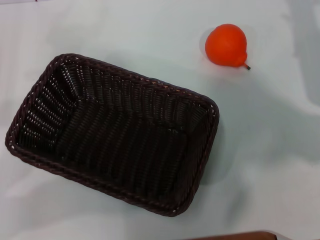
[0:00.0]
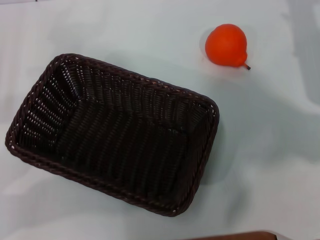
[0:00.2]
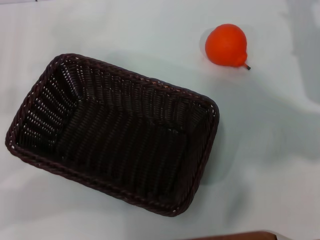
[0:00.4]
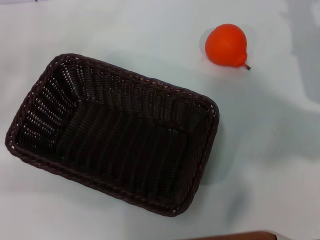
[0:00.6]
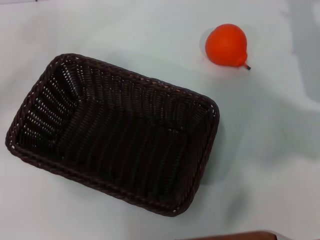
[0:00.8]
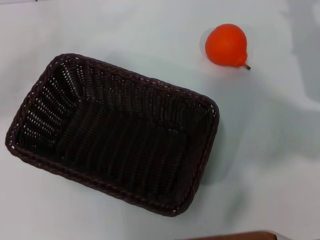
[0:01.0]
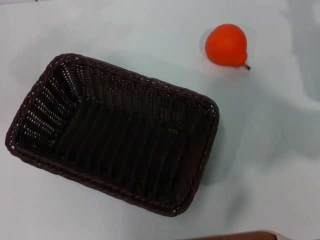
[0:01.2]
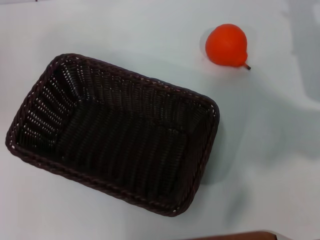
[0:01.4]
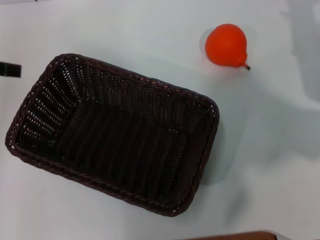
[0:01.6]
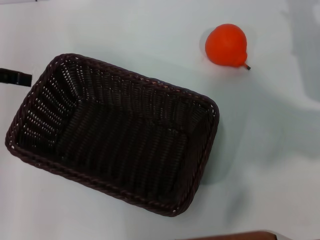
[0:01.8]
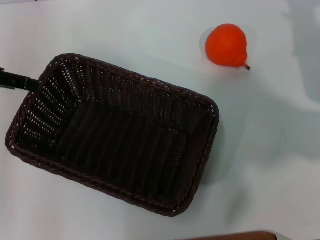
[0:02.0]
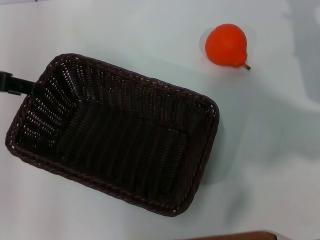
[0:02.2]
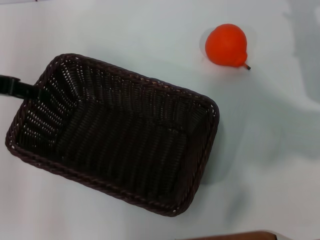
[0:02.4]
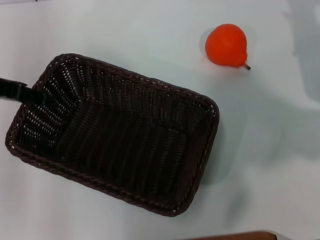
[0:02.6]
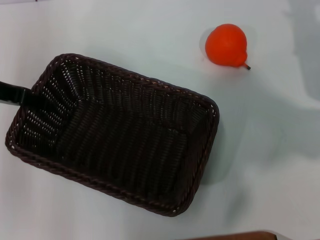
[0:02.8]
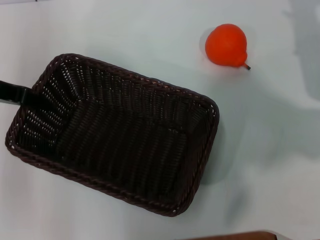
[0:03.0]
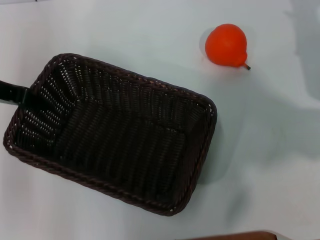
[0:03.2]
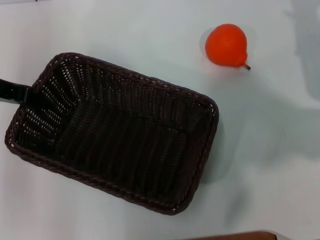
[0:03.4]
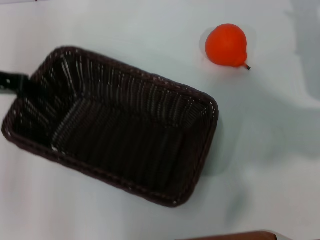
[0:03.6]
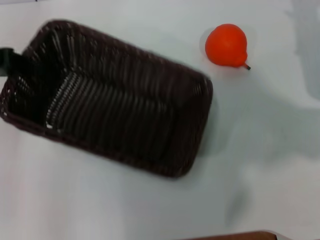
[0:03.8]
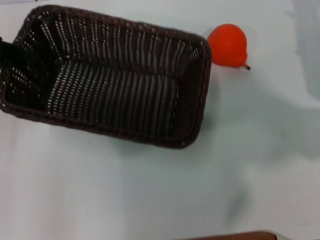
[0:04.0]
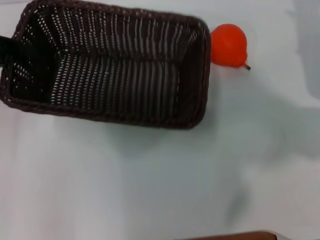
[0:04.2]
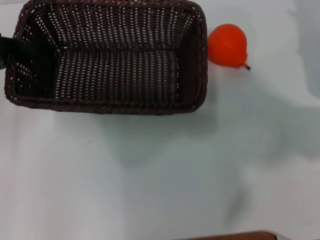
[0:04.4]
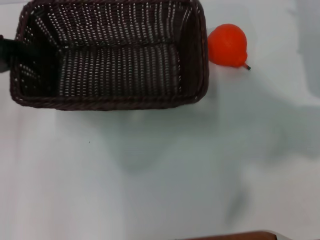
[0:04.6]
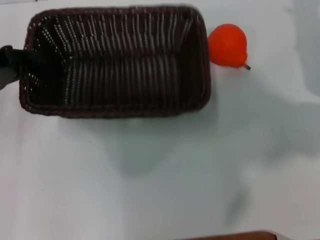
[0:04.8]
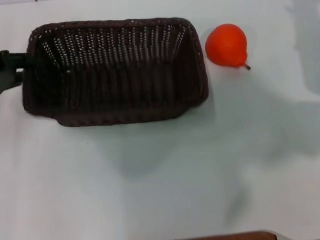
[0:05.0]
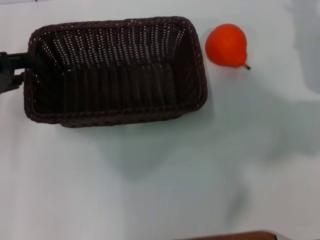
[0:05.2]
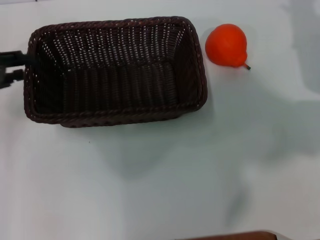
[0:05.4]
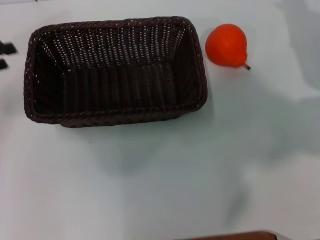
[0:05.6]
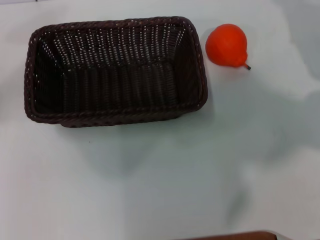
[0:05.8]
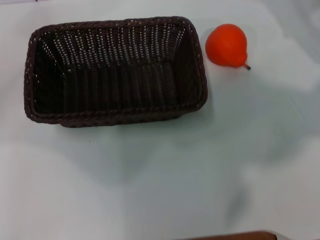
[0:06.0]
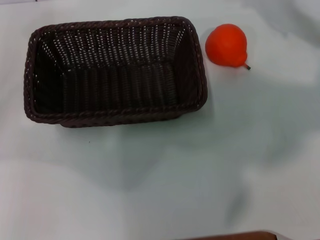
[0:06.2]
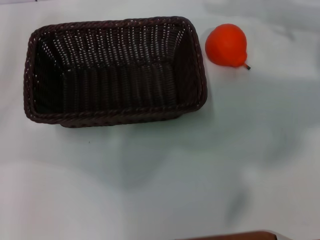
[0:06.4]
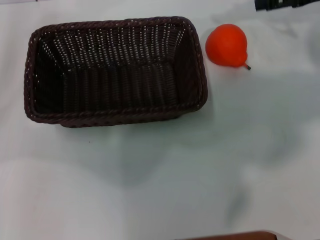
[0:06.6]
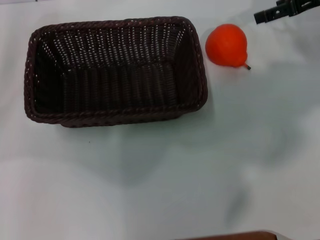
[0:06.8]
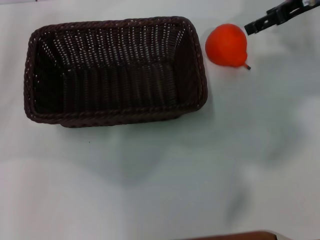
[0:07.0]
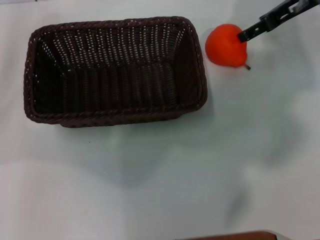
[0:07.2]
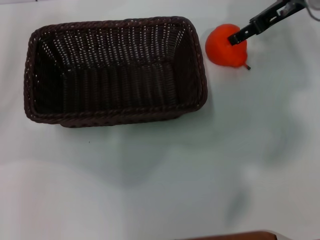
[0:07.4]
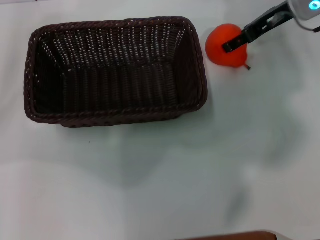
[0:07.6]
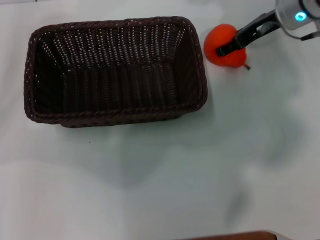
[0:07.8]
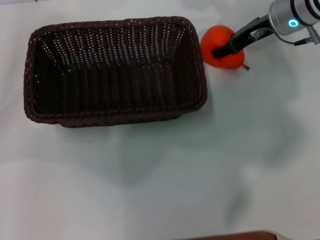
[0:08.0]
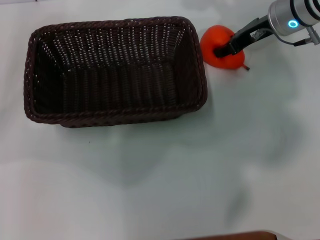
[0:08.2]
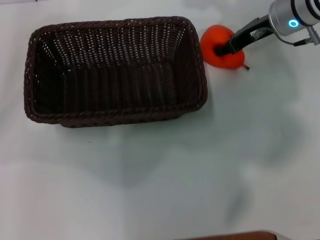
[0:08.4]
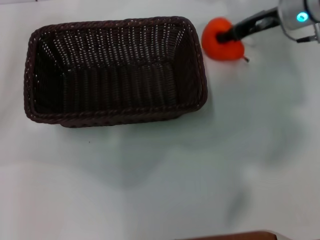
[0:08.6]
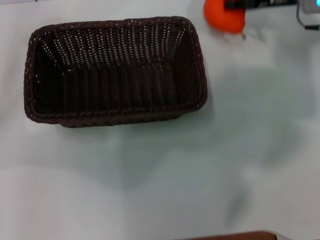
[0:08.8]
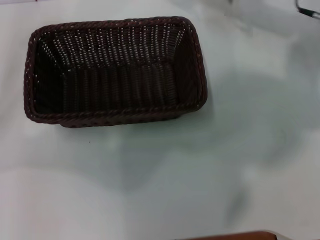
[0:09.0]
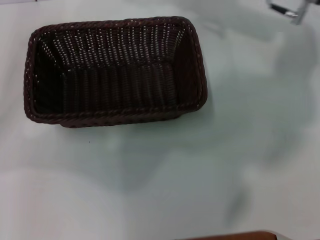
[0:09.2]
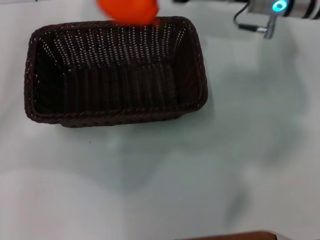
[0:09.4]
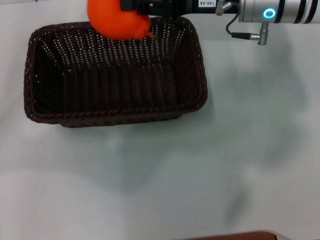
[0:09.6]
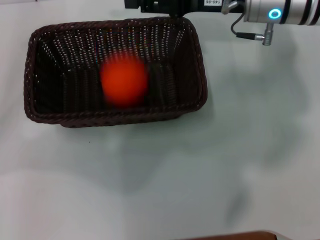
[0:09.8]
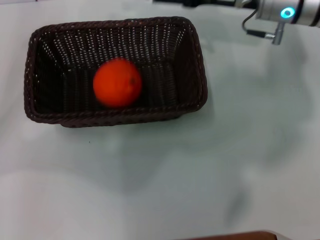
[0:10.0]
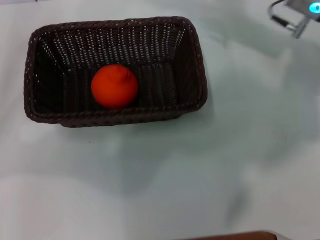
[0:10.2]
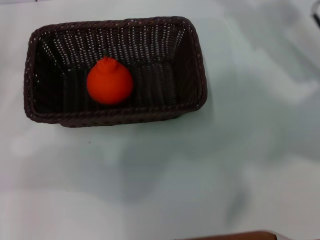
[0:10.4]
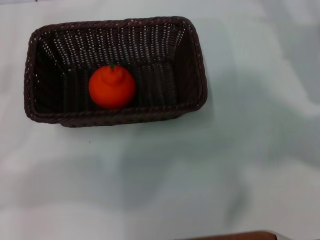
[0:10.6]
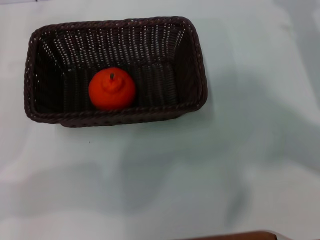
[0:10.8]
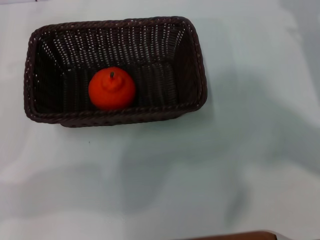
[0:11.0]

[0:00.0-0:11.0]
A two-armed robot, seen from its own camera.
Task of the whole recording: the left gripper pick up the black basket and place it horizontally in the middle of the table, the right gripper pick up the orange and place it into the black basket.
Step, 0:00.0 to 0:03.6: Pick up the dark basket with the left gripper.
Step, 0:03.8 to 0:05.4: Place the dark basket in the center of view with the left gripper.
Step, 0:05.6 to 0:08.6: Pick up the orange with the right gripper.
Step, 0:08.8 to 0:09.8: Place the orange into the dark basket with the right gripper.
0:00.0 to 0:01.6: The left gripper shifts approximately 15 cm upward and forward.
0:01.6 to 0:03.2: The left gripper heads to the right and downward, covering roughly 10 cm, and closes its fingers.
0:03.2 to 0:04.8: The left gripper changes place by roughly 5 cm.
0:04.8 to 0:06.2: The left gripper is displaced to the left by about 5 cm, and opens; the right gripper moves upward, approximately 5 cm.
0:06.2 to 0:07.8: The right gripper travels to the left by roughly 10 cm.
0:07.8 to 0:09.4: The right gripper heads to the left, covering about 5 cm, and closes.
0:09.4 to 0:11.0: The right gripper travels to the right, backward and downward by roughly 20 cm, and opens its fingers. The left gripper is displaced backward by approximately 5 cm.

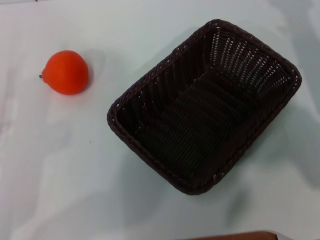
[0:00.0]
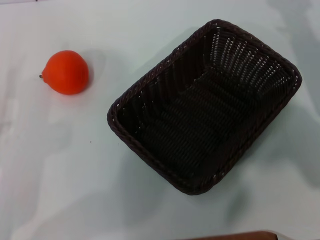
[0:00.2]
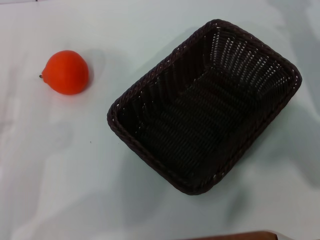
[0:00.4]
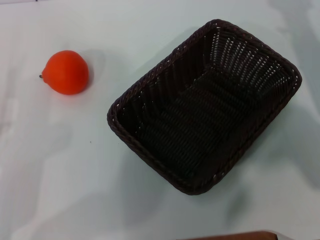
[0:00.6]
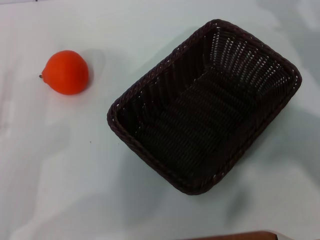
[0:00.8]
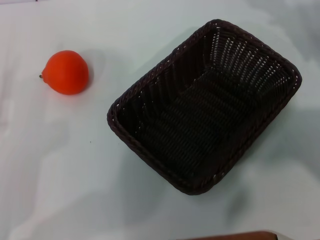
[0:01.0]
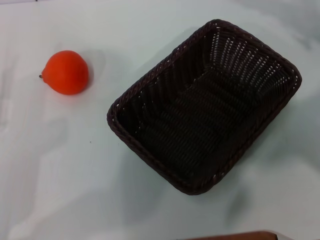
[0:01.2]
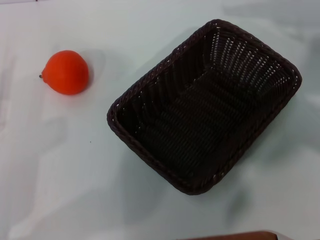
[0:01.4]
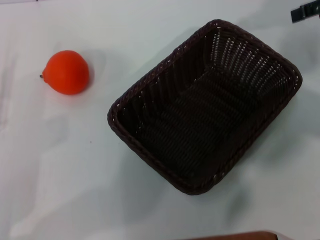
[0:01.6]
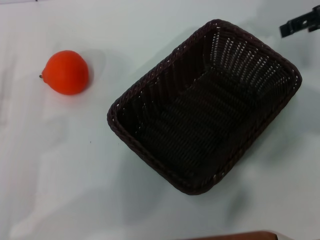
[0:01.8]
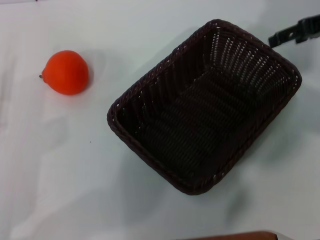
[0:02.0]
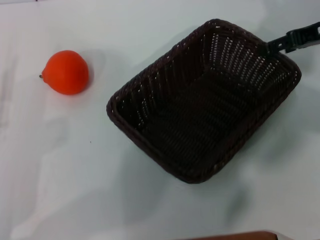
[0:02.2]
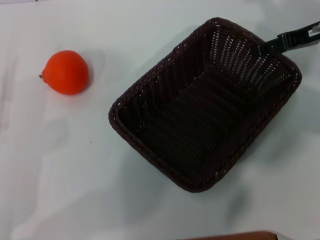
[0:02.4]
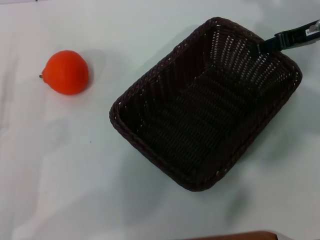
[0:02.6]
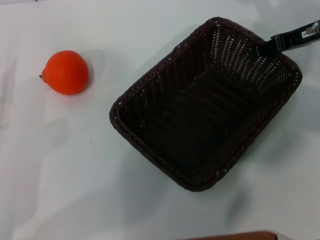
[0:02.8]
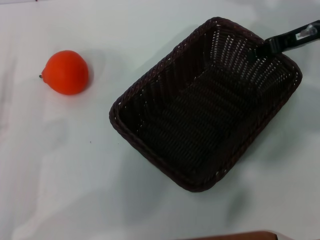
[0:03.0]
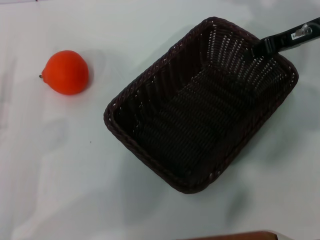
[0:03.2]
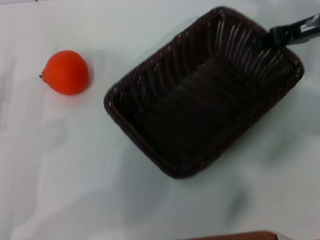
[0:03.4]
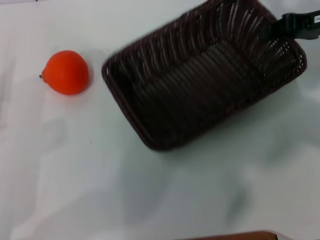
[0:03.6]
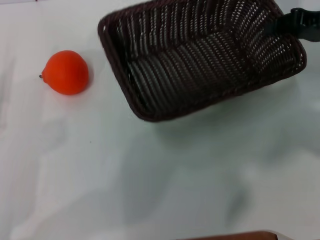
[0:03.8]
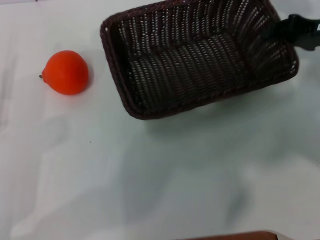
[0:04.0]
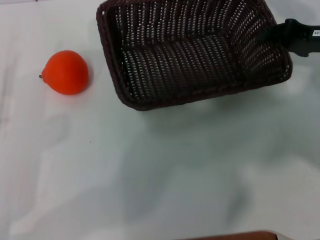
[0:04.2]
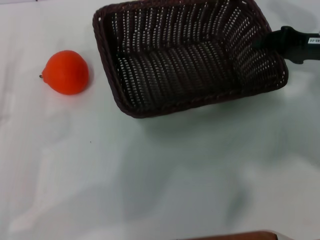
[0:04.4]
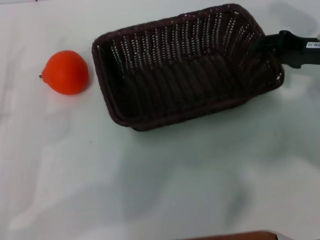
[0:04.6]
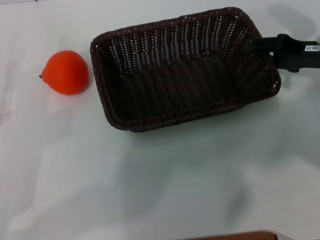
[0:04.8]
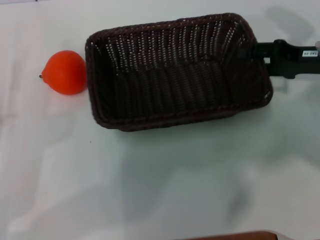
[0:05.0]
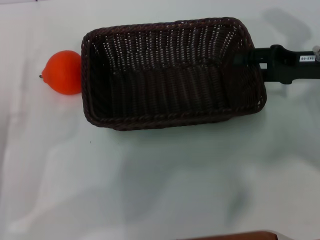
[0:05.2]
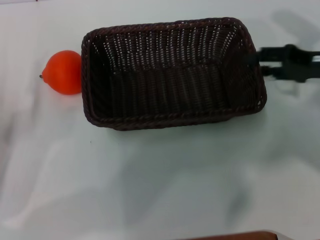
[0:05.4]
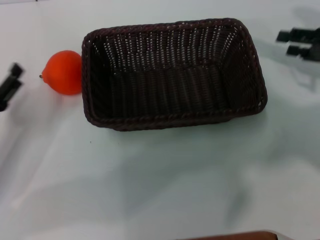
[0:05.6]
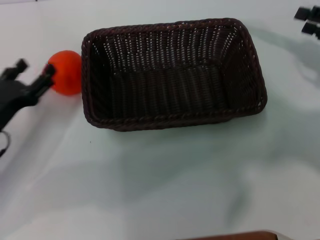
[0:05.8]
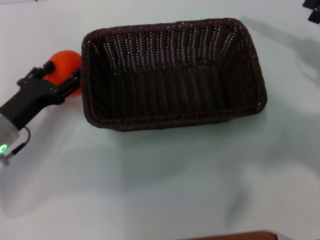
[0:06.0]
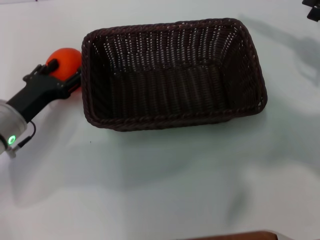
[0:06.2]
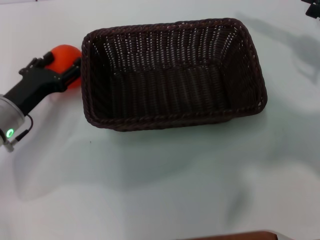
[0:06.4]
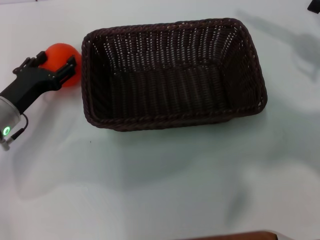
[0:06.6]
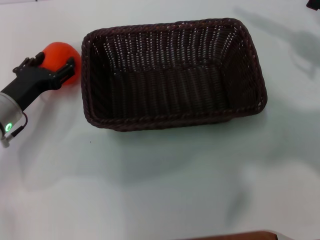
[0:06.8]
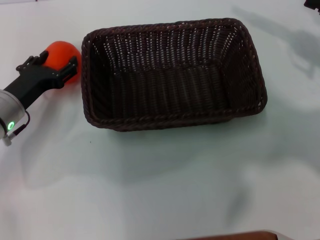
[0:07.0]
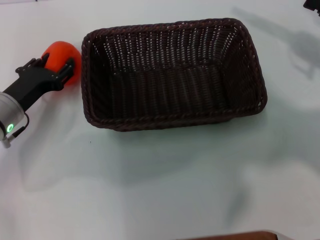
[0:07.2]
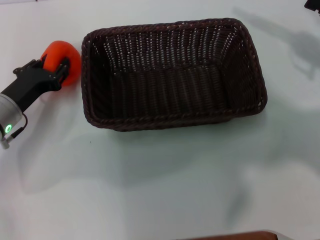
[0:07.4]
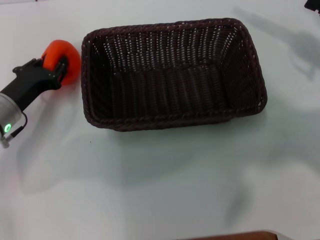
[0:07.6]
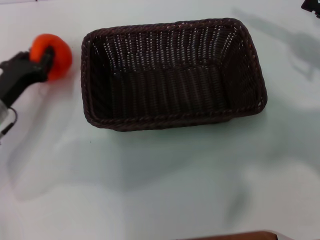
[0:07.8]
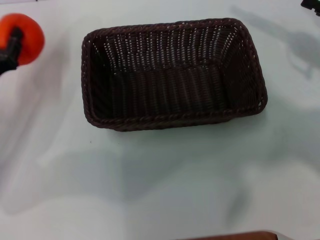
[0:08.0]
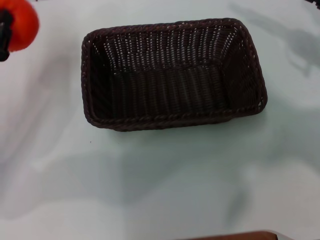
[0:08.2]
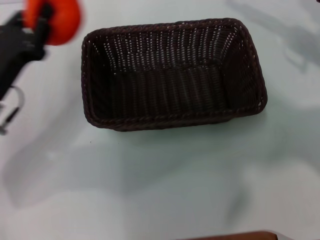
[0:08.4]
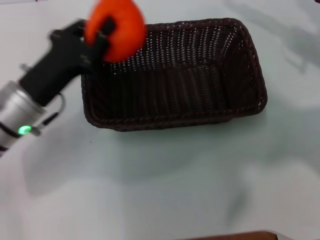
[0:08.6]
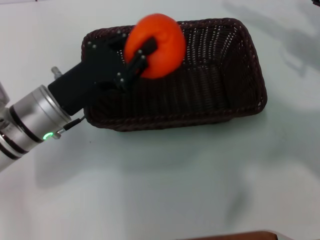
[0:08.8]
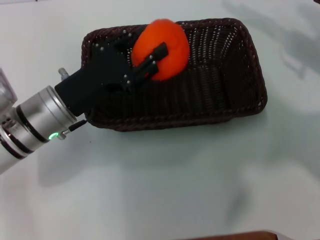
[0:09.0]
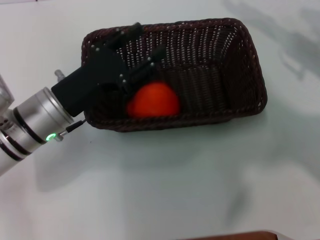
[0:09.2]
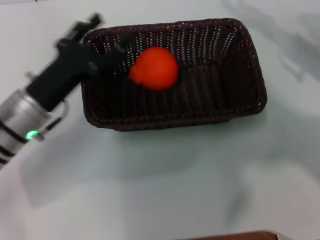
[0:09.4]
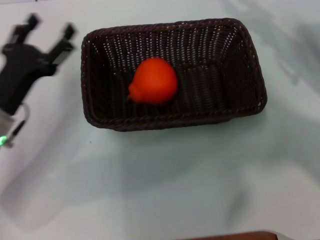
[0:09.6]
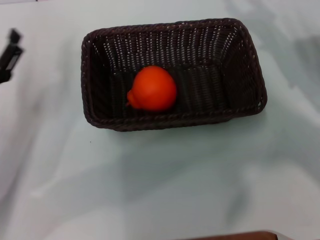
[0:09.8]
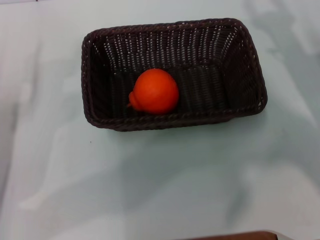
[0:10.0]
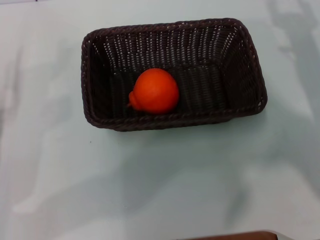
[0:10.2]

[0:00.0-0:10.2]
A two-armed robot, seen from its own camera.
Task of the whole recording: the right gripper pick up the black basket and place it horizontally in the middle of the table, the left gripper pick up the orange and place it into the black basket.
Step, 0:00.0 to 0:03.6: Pick up the dark basket with the right gripper.
Step, 0:03.8 to 0:05.4: Place the dark basket in the center of view with the right gripper.
Step, 0:05.6 to 0:08.0: Pick up the orange with the left gripper.
Step, 0:08.2 to 0:09.2: Place the orange into the dark basket with the left gripper.
0:00.0 to 0:01.4: The right gripper shifts roughly 15 cm upward.
0:01.4 to 0:03.0: The right gripper travels downward and to the left by approximately 10 cm, and closes up.
0:03.0 to 0:04.4: The right gripper shifts by approximately 5 cm.
0:04.4 to 0:05.8: The right gripper heads to the right, covering roughly 5 cm, and opens up; the left gripper is displaced forward by about 5 cm.
0:05.8 to 0:07.2: The left gripper goes approximately 5 cm forward.
0:07.2 to 0:08.8: The left gripper shifts about 10 cm to the right and upward, and closes its fingers.
0:08.8 to 0:10.2: The right gripper is displaced downward by about 5 cm; the left gripper travels to the left by about 15 cm, and opens its fingers.
